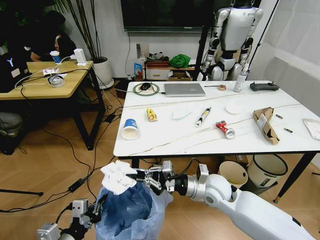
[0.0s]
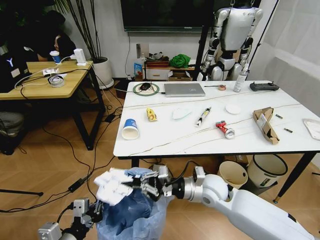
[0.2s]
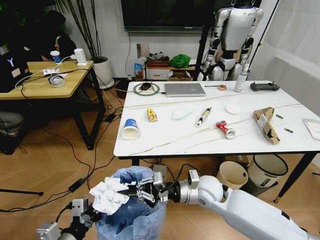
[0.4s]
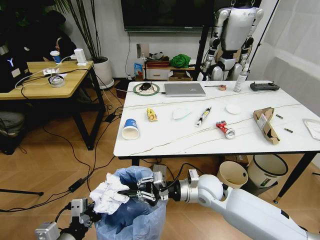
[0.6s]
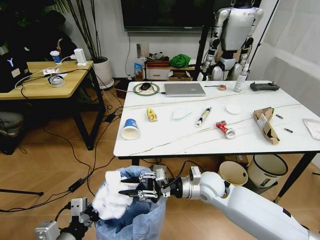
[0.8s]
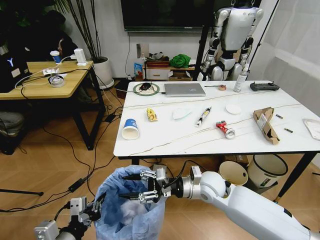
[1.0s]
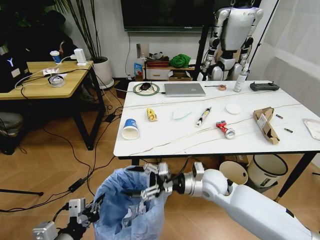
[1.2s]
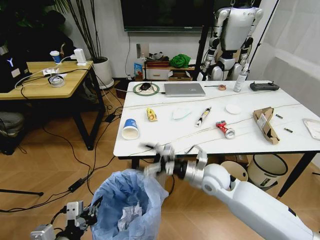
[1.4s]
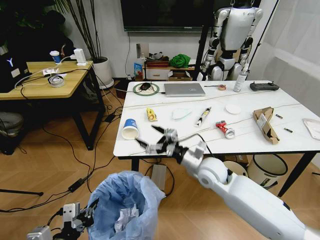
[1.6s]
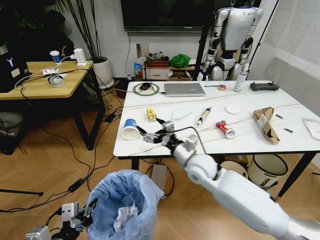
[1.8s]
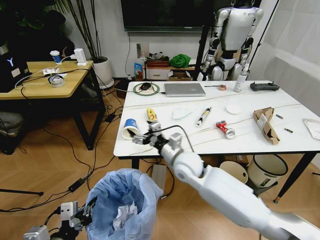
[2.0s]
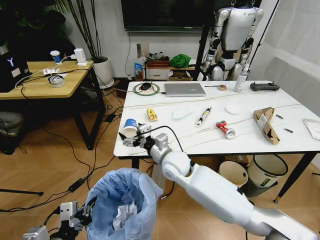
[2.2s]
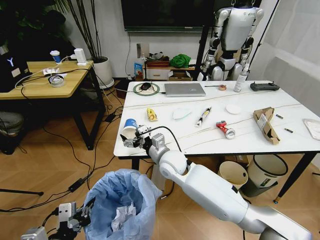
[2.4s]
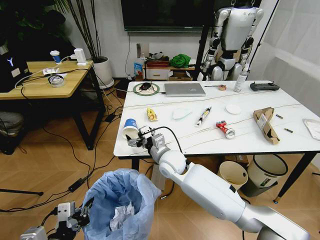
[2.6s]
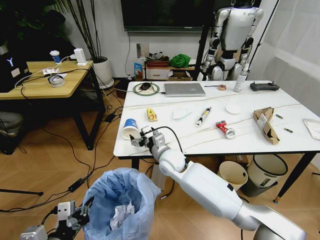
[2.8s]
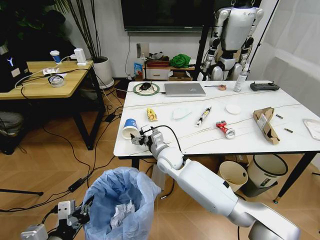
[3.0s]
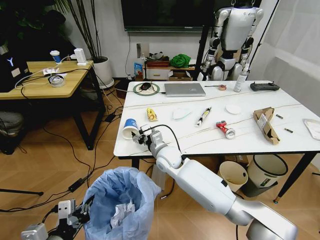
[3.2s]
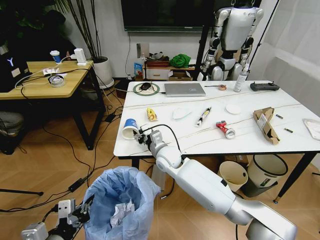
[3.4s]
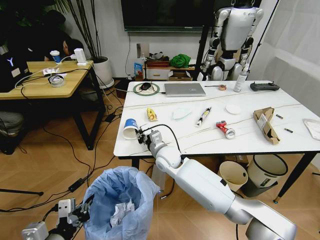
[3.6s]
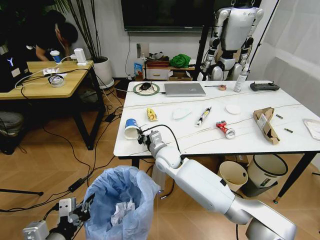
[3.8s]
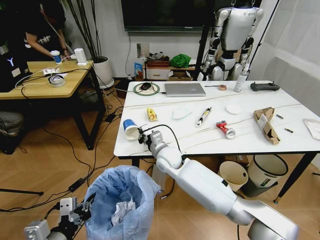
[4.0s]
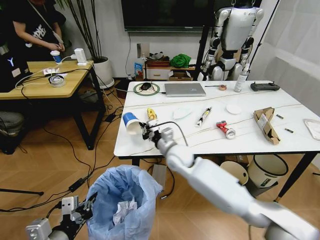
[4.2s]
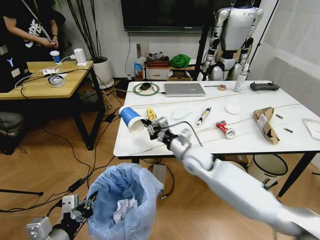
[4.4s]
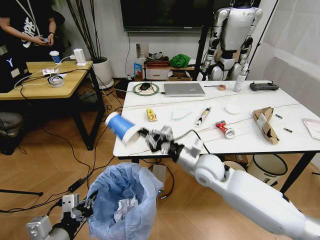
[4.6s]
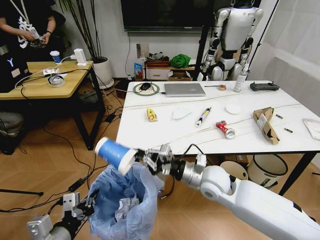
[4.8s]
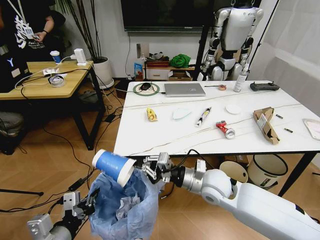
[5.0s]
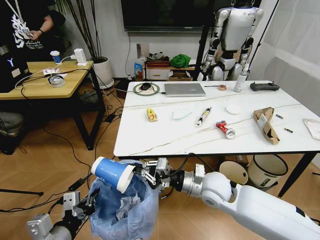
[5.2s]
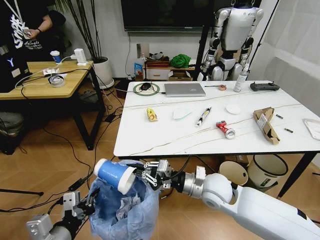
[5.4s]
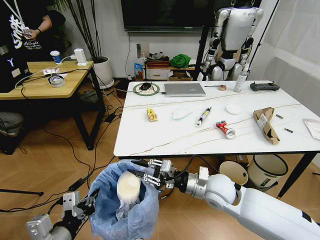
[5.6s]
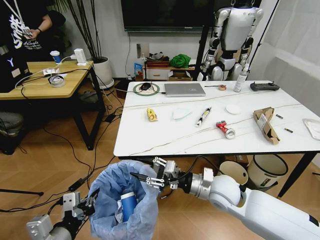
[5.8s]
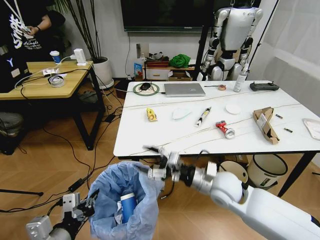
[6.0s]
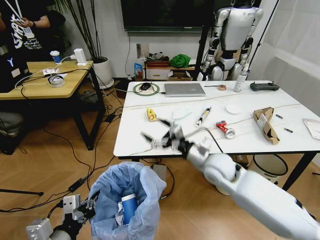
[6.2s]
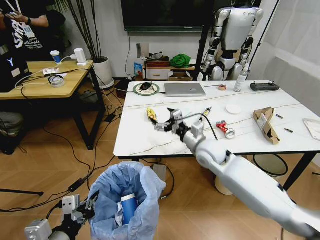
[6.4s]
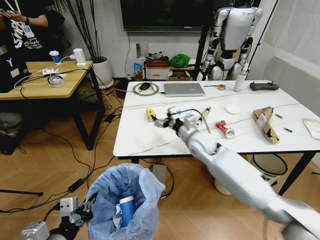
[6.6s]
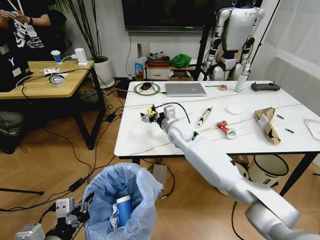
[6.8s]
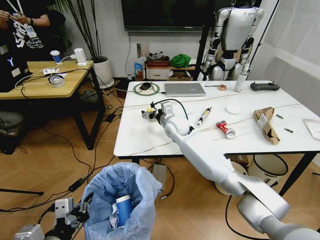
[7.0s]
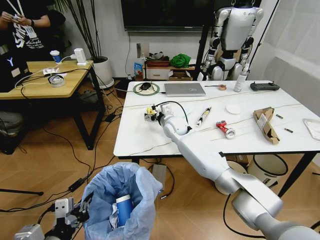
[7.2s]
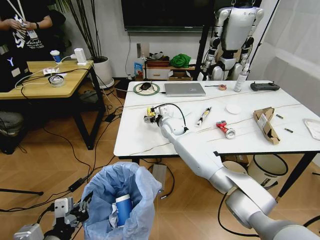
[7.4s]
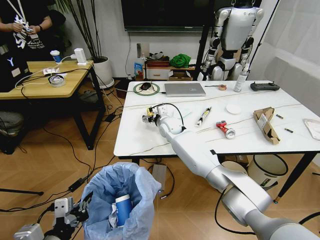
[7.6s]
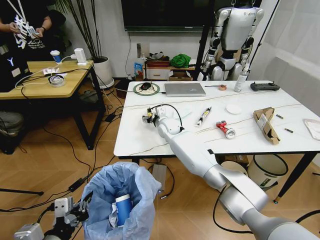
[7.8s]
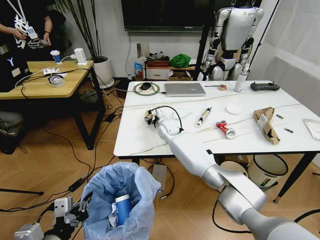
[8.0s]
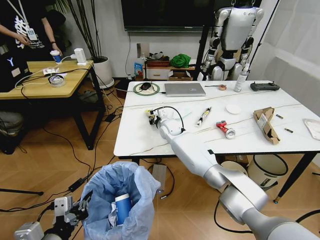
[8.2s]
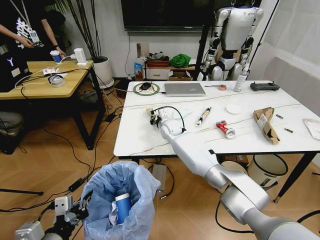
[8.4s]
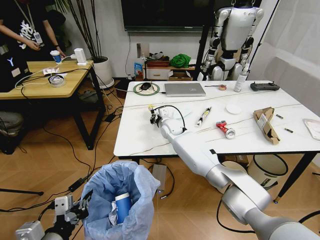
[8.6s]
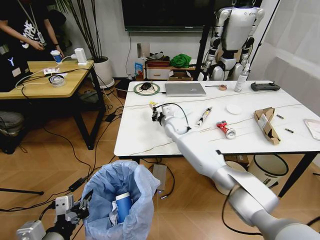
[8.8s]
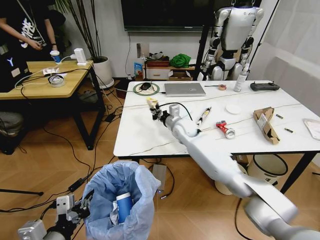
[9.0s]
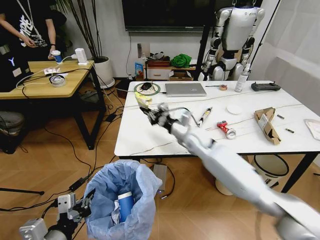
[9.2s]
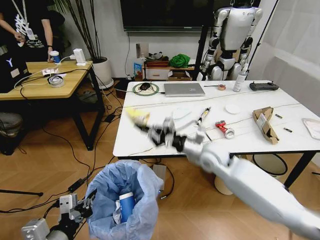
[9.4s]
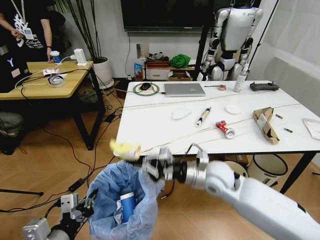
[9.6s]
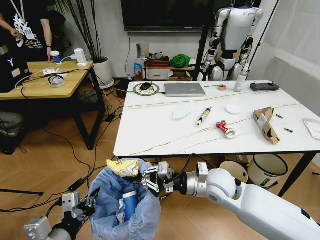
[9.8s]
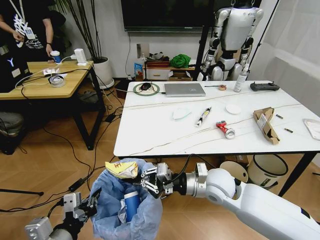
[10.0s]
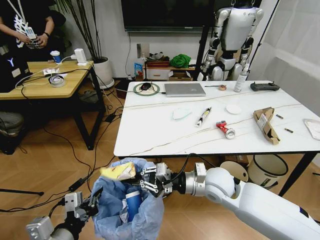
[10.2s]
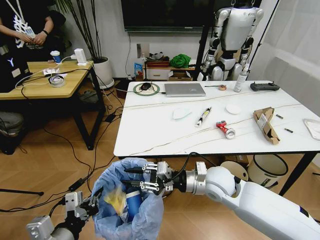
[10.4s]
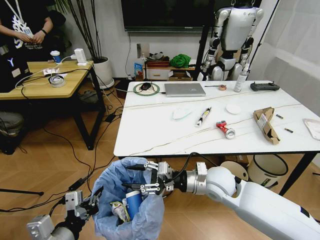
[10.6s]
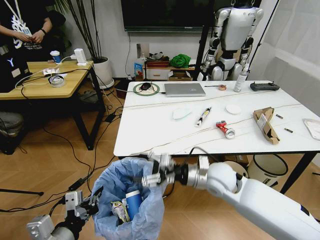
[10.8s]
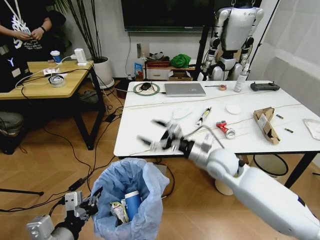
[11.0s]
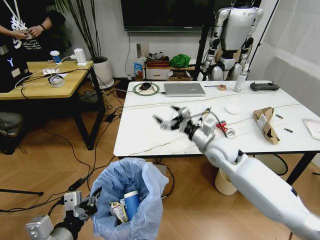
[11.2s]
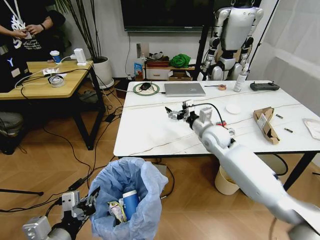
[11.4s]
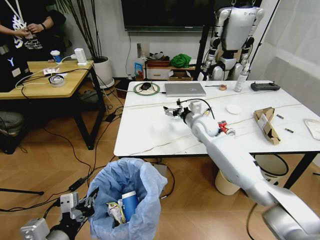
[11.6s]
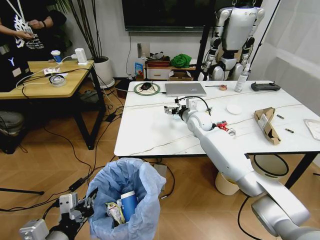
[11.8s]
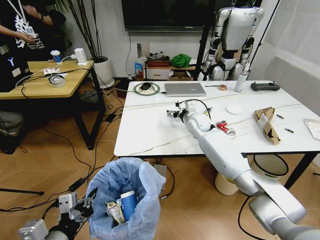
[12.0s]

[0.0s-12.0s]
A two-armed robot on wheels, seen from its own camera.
Task of the whole recording: Pick up the trash bin and place the trash from the table into it.
0.0s to 1.6s: The right gripper goes about 5 cm forward, and opens.
1.6s to 3.0s: The right gripper is displaced to the left and forward by about 15 cm.
3.0s to 4.4s: The right gripper travels to the right by some 10 cm, and closes up.
4.4s to 6.0s: The right gripper moves backward and to the right, some 10 cm, and opens its fingers.
6.0s to 7.6s: The right gripper travels forward and to the left by roughly 30 cm.
7.6s to 9.0s: The right gripper heads to the right, covering about 5 cm, and closes its fingers.
9.0s to 10.4s: The right gripper shifts some 20 cm backward.
10.4s to 12.0s: The right gripper moves forward, roughly 25 cm, and opens up.

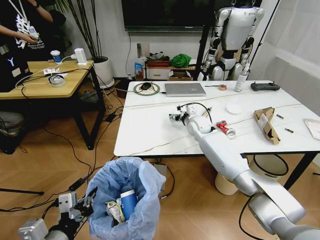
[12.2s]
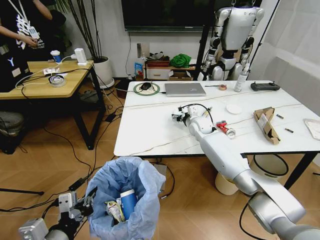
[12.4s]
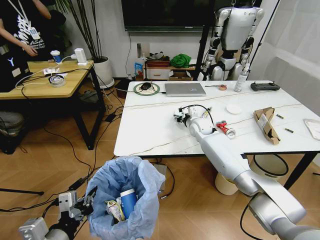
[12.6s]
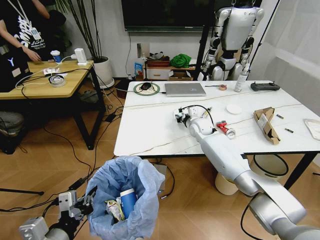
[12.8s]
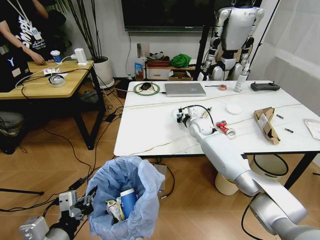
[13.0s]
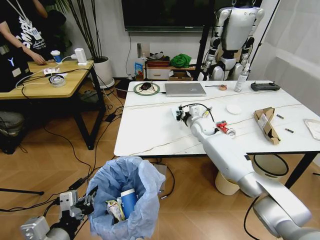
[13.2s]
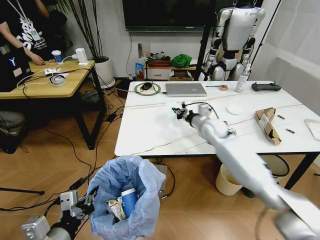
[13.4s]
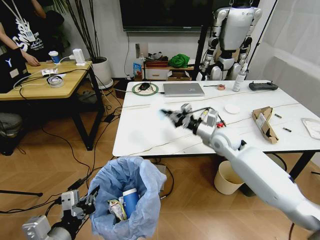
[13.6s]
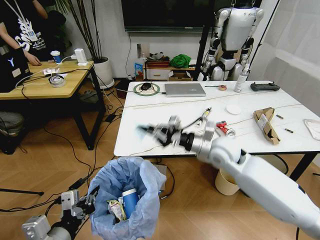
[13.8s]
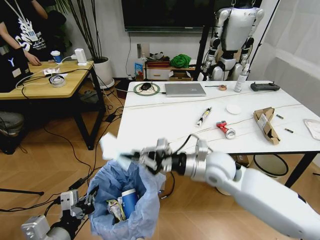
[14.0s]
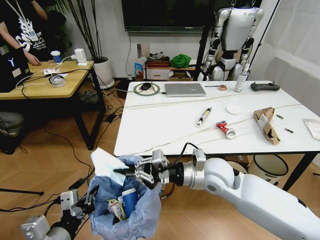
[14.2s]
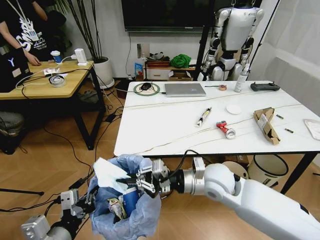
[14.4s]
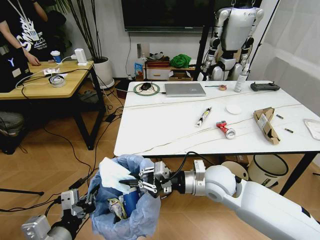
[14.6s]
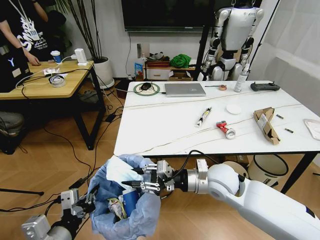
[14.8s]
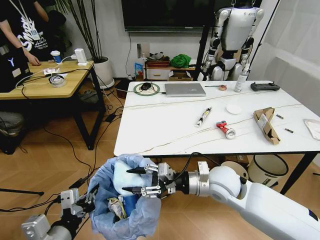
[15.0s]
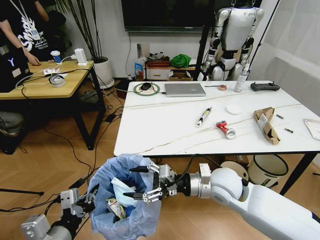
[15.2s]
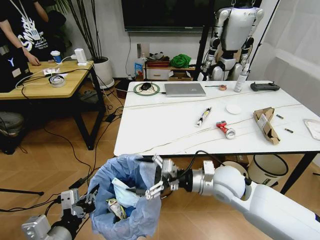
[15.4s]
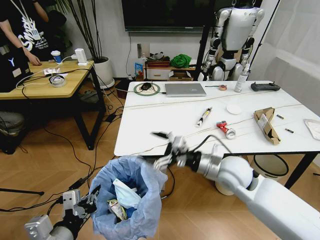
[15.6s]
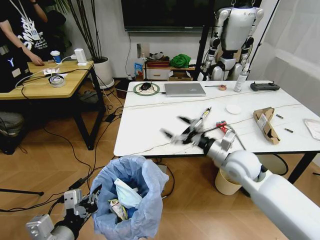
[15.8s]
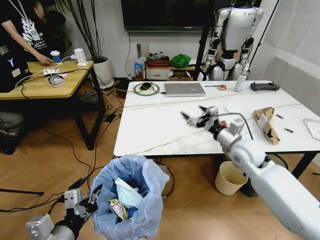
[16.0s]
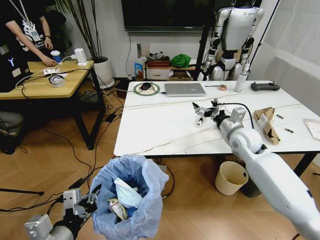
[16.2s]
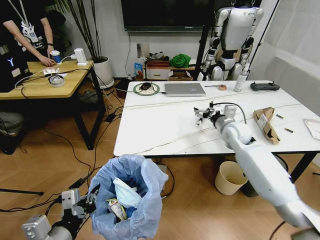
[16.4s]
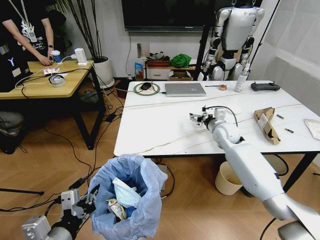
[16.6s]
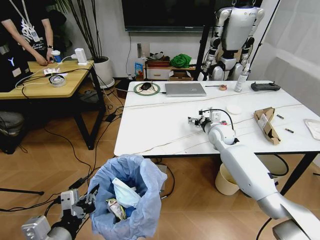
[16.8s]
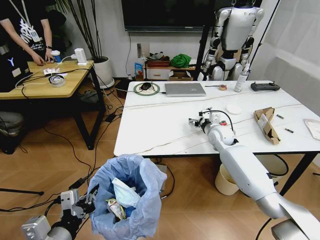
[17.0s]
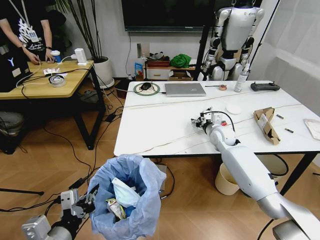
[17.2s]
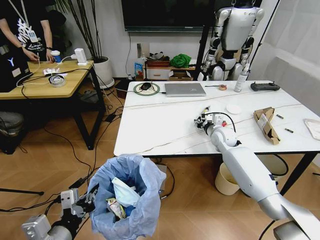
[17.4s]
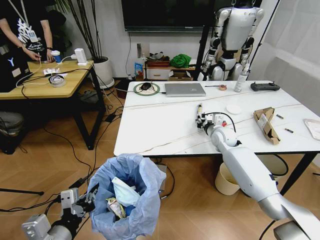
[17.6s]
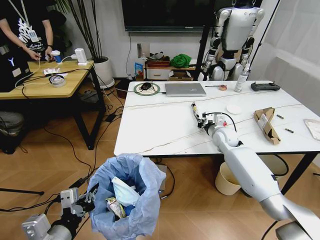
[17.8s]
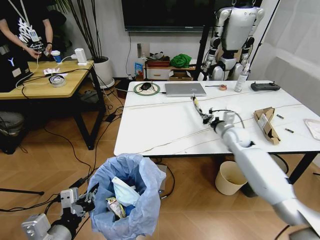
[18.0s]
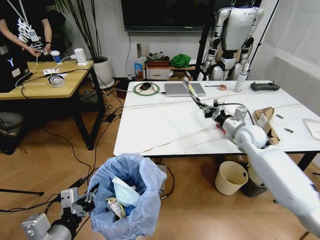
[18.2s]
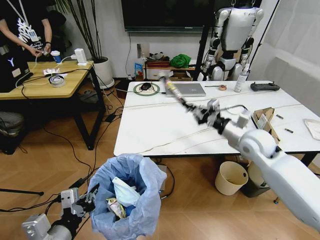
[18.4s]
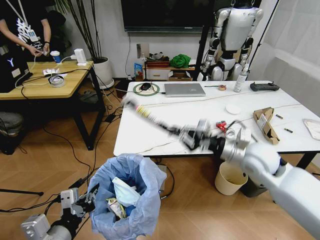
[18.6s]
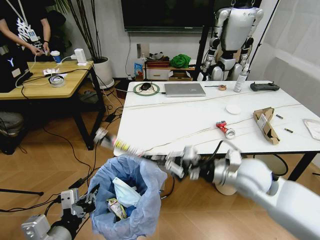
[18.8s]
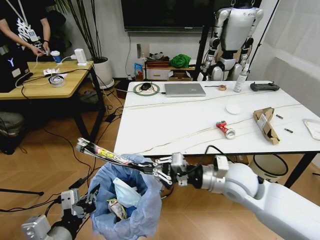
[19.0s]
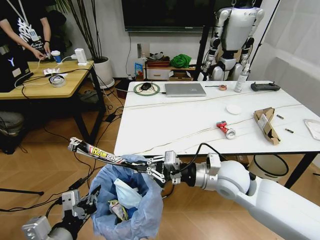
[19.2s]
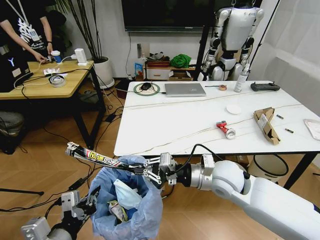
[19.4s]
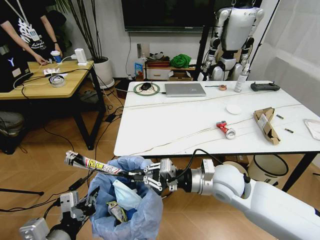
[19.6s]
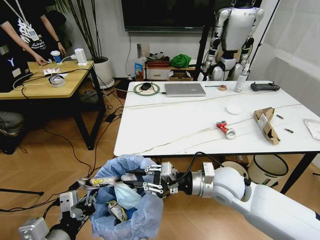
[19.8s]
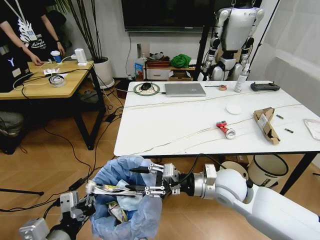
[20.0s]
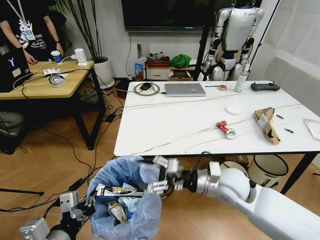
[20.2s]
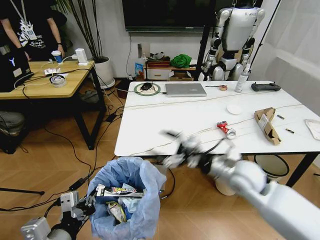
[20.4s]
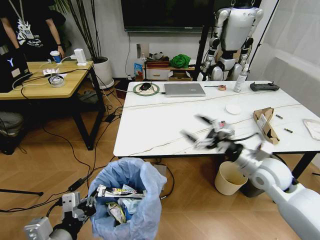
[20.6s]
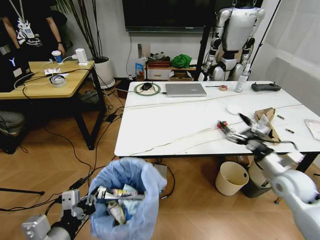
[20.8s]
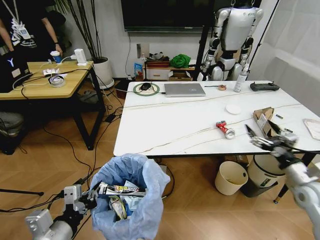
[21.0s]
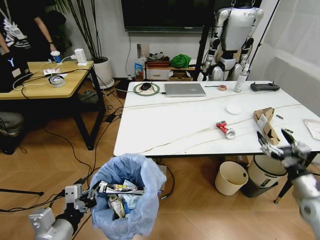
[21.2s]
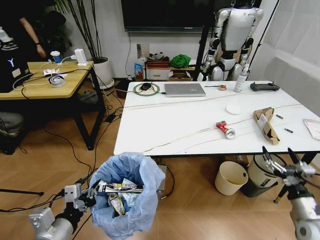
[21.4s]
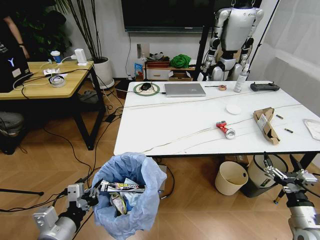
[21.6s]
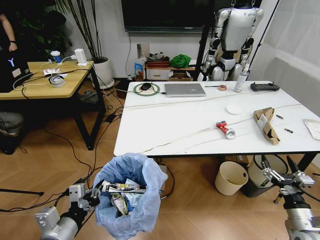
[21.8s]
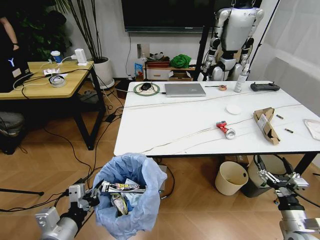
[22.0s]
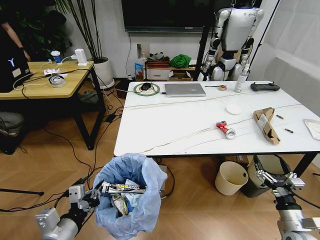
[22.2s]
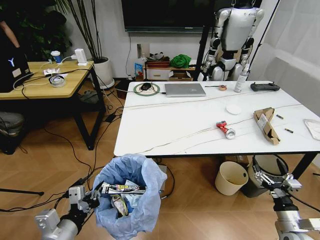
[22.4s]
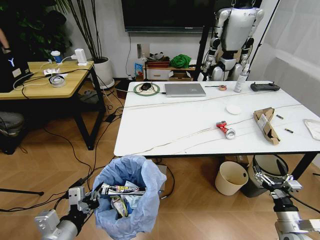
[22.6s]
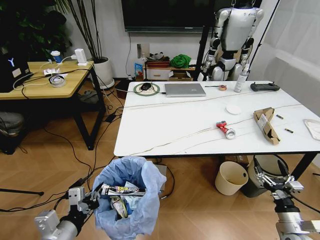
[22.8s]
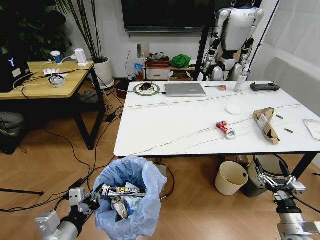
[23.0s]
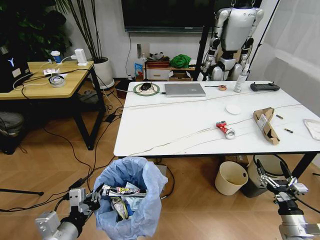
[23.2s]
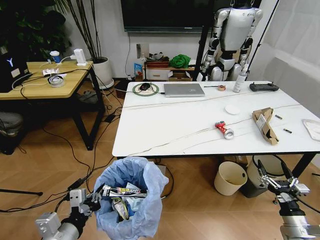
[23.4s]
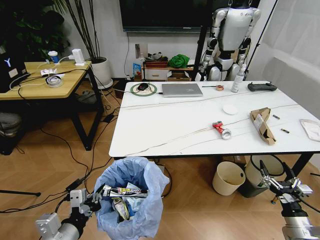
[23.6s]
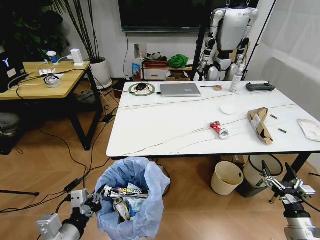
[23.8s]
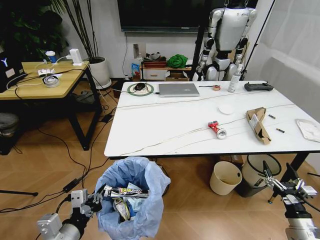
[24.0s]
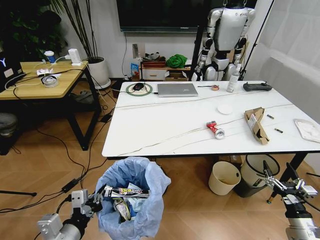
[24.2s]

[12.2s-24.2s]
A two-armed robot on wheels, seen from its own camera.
Task of the whole recording: Pick up the trash bin and place the trash from the table into it.
12.2s to 13.8s: The right gripper moves backward, about 20 cm, and closes.
13.8s to 15.2s: The right gripper is displaced backward by roughly 10 cm, and opens.
15.2s to 16.6s: The right gripper heads forward, covering about 20 cm.
16.6s to 18.2s: The right gripper moves to the right, approximately 5 cm, and closes up.
18.2s to 19.8s: The right gripper moves backward and to the left, roughly 20 cm.
19.8s to 21.2s: The right gripper goes approximately 30 cm to the right, and opens its fingers.
21.2s to 22.6s: The right gripper goes about 10 cm downward and backward.
